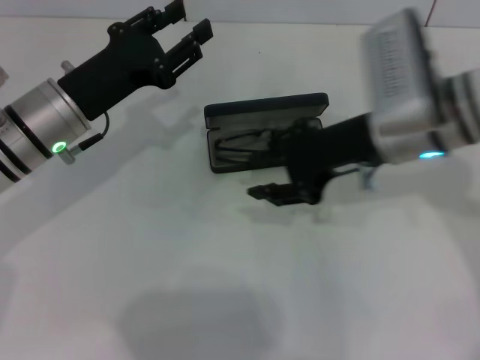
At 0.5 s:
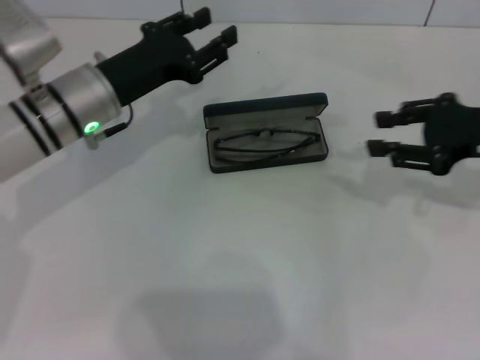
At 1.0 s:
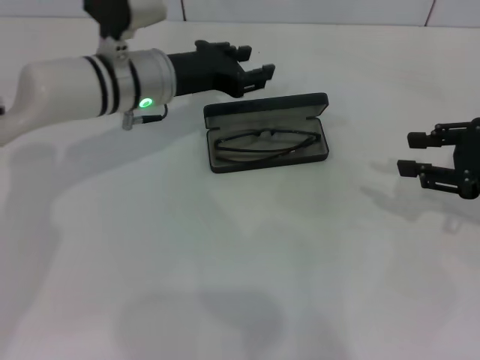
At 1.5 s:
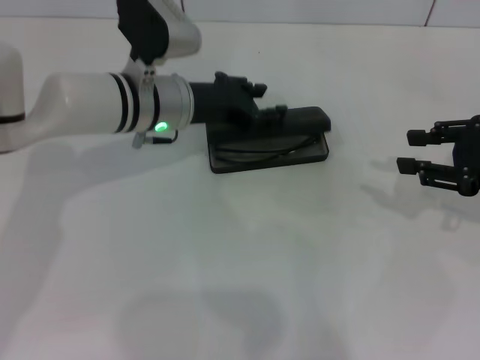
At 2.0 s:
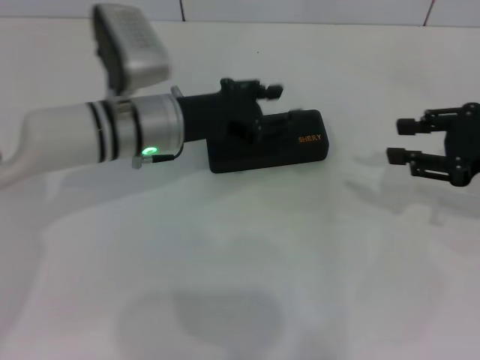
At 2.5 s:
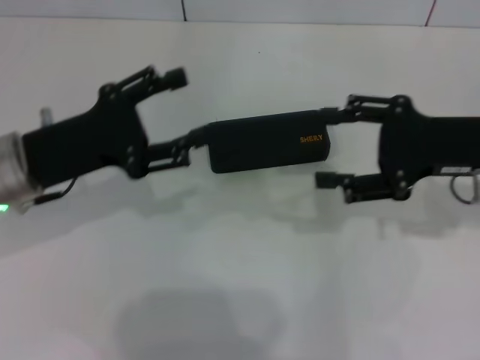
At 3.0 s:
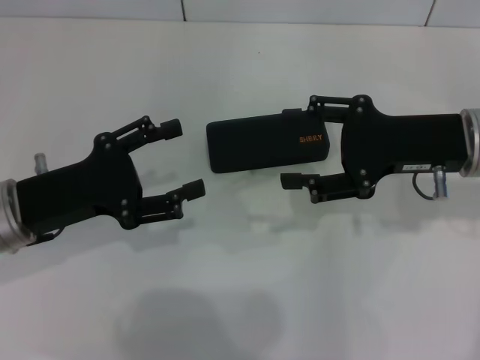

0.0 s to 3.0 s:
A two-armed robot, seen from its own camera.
Step, 0.0 to 1.5 s: Close the glasses case with your left hand.
0.0 to 1.5 s: The right gripper heads to the right, covering approximately 15 cm. The left gripper goes roughly 10 cm to the right and forward.
1.5 to 3.0 s: The right gripper is displaced to the left by roughly 10 cm, and opens its fingers. The left gripper shifts about 20 cm backward and to the left, and opens its fingers.

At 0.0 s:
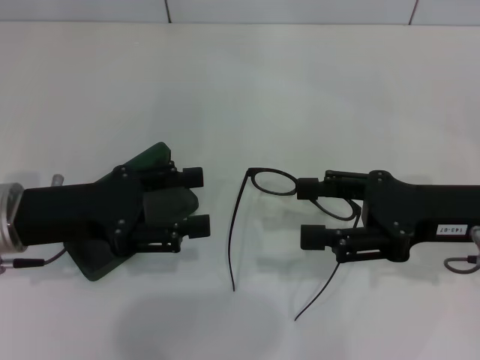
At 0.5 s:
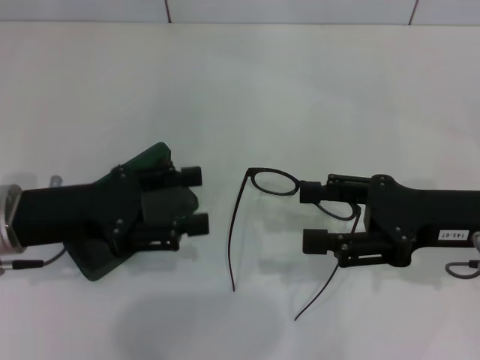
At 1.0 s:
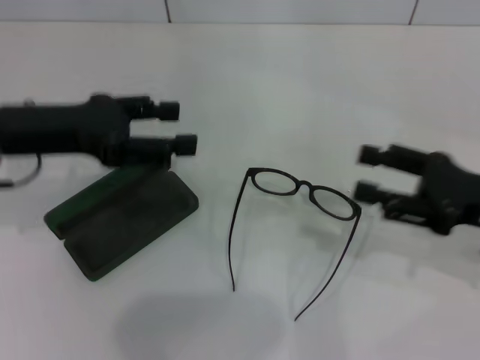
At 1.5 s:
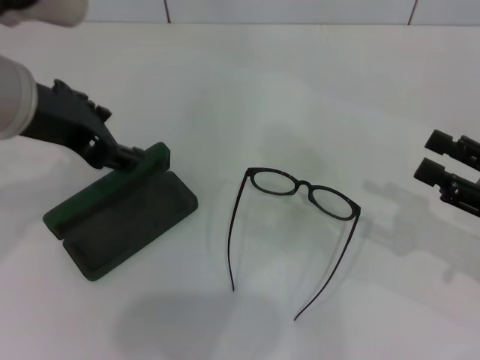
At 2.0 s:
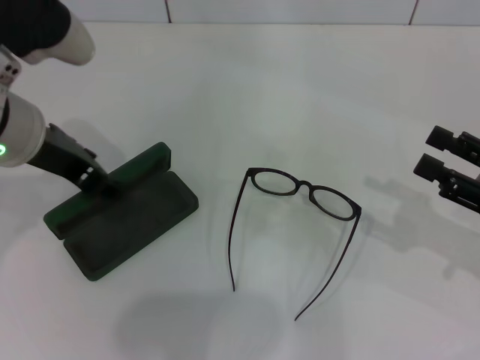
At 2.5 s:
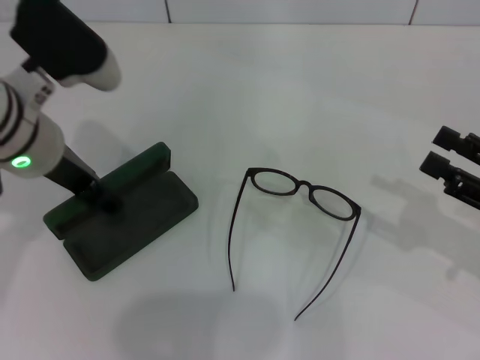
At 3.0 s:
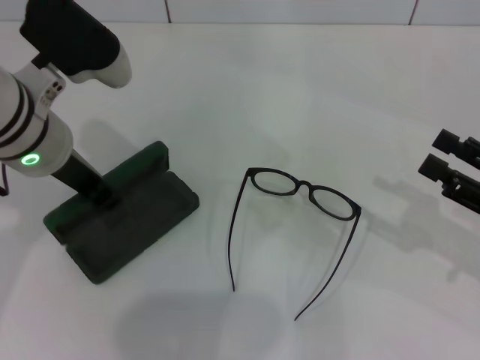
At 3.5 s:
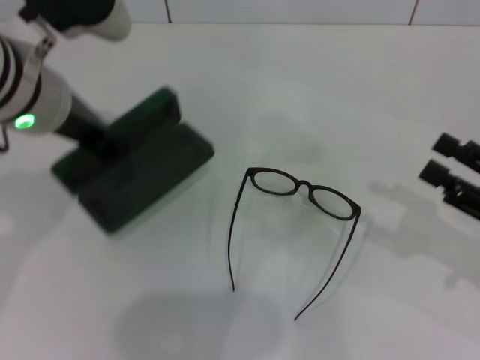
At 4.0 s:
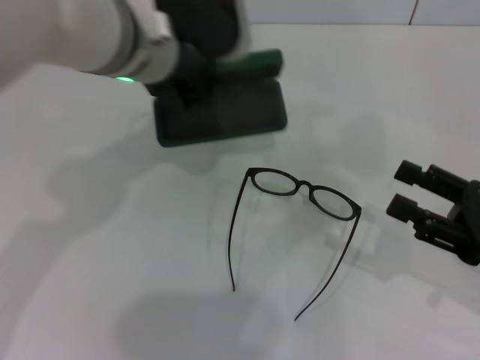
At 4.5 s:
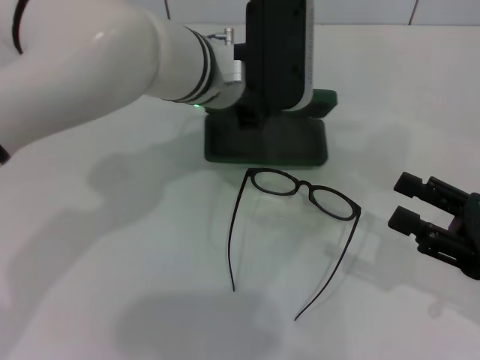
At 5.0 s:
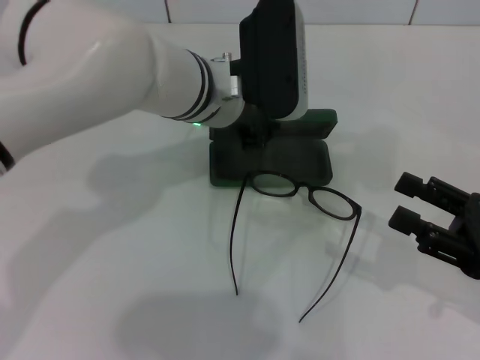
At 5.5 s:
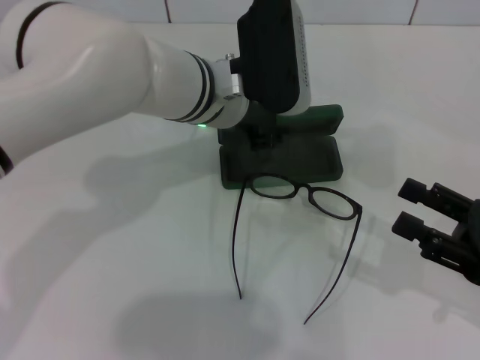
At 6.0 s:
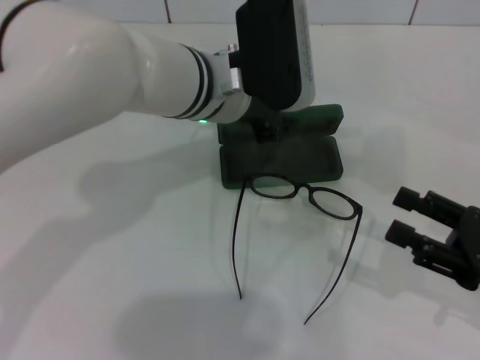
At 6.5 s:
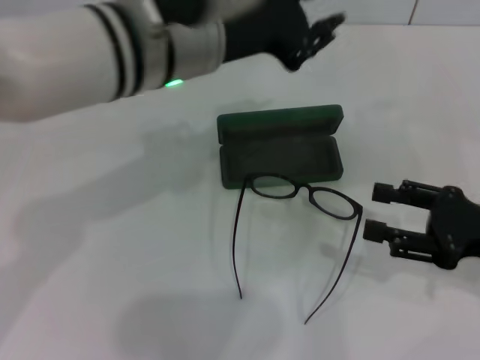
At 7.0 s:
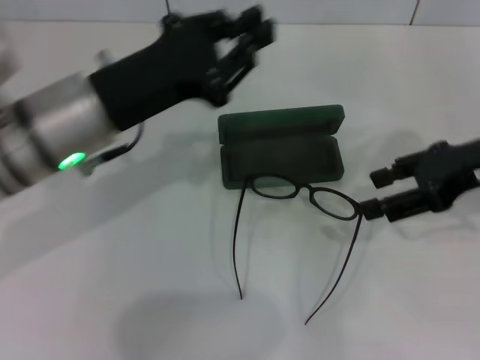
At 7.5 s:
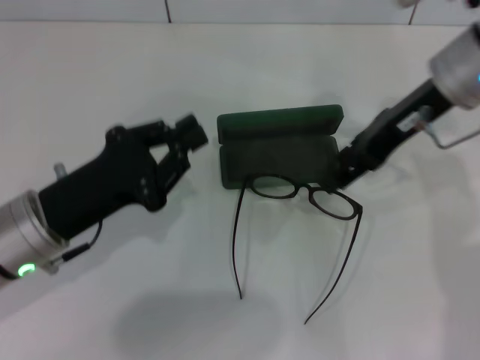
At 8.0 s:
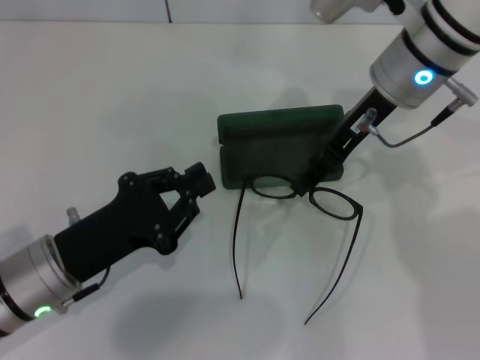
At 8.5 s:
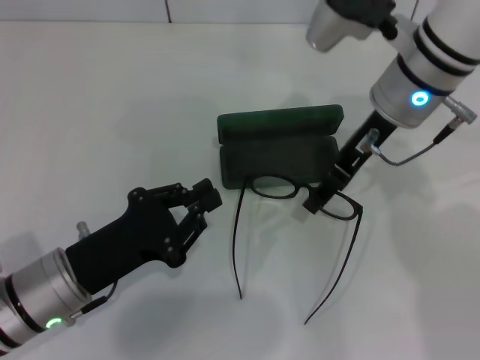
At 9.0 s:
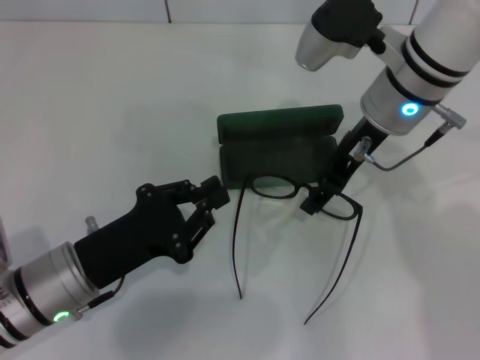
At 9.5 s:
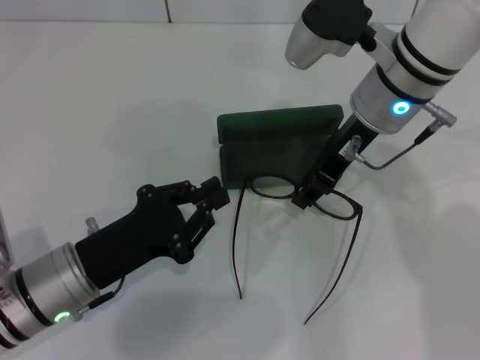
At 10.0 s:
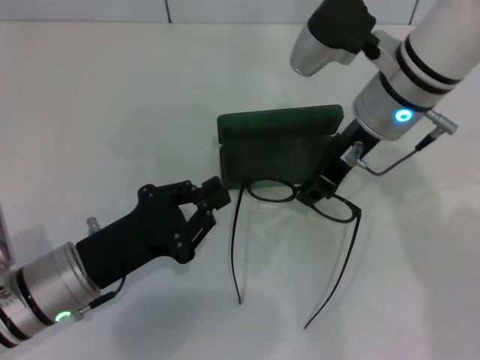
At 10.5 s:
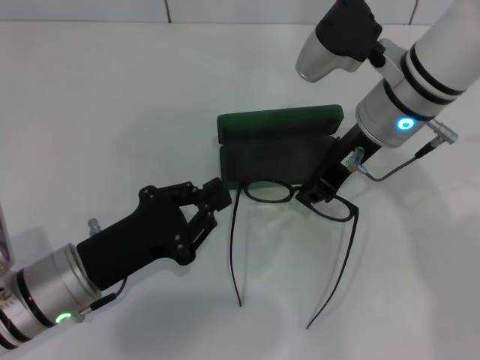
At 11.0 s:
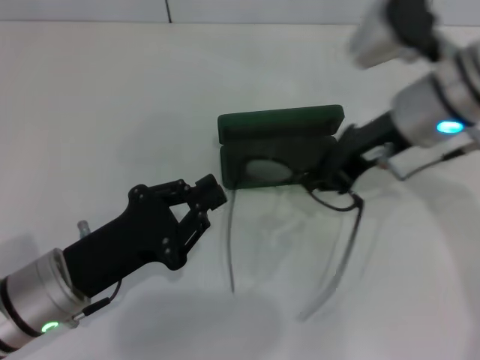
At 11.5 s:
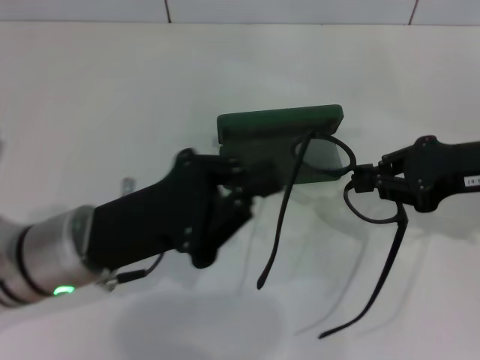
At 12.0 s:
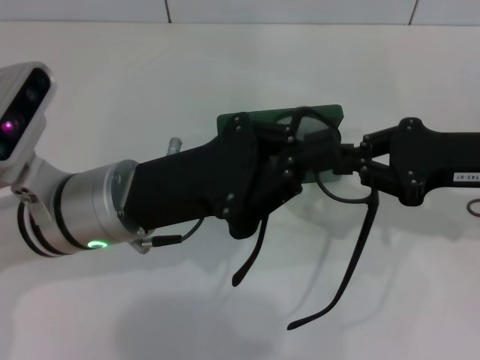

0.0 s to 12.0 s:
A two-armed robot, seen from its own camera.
Step, 0.0 to 2.5 s: Grab the glasses case with your left hand.
Step, 3.0 to 6.0 s: Place the glasses case in the center of the table with your left hand.
Step, 6.5 to 10.5 s: Grab the eyeglass frame with your right hand.
0.0 to 2.0 s: The left gripper is displaced upward by some 10 cm. Meanwhile the right gripper heads to the right, covering about 10 cm.
2.0 to 4.0 s: The left gripper moves to the right and forward, approximately 10 cm, and closes up.
4.0 to 6.0 s: The left gripper shifts by about 5 cm.
6.0 to 8.0 s: The left gripper is displaced to the left, backward and downward by some 25 cm. Meanwhile the right gripper shifts roughly 30 cm forward, to the left and upward.
8.0 to 10.0 s: The right gripper closes its fingers.
10.0 to 12.0 s: The left gripper travels upward and to the right by some 10 cm; the right gripper shifts some 15 cm to the right and backward.

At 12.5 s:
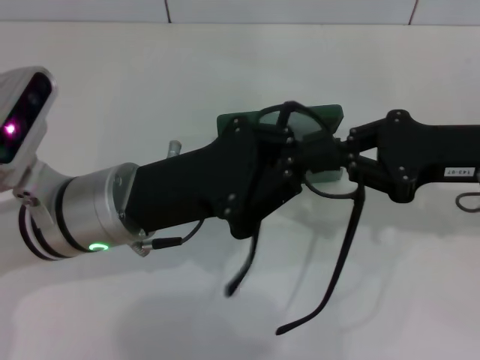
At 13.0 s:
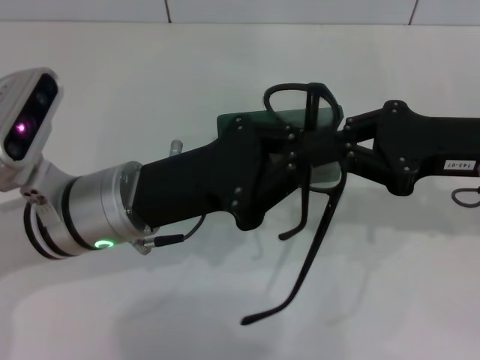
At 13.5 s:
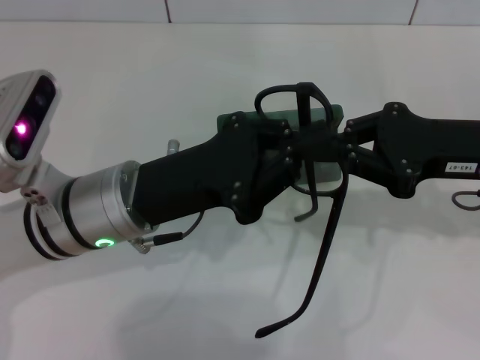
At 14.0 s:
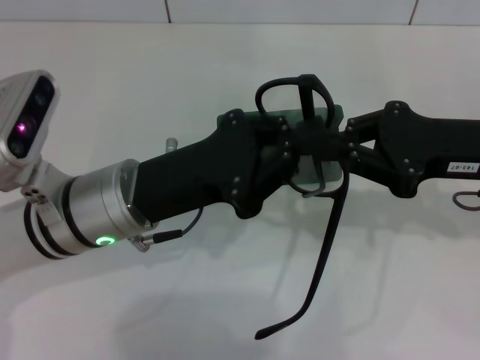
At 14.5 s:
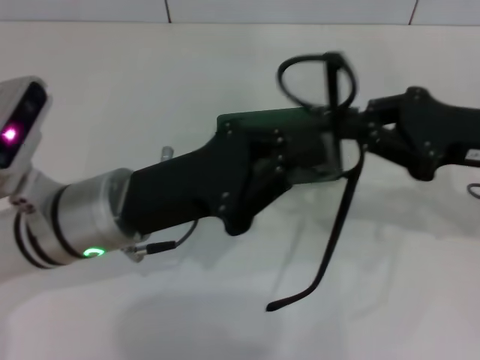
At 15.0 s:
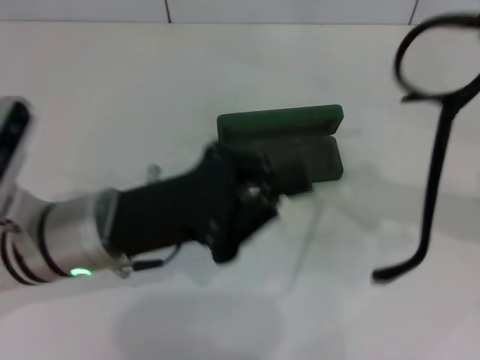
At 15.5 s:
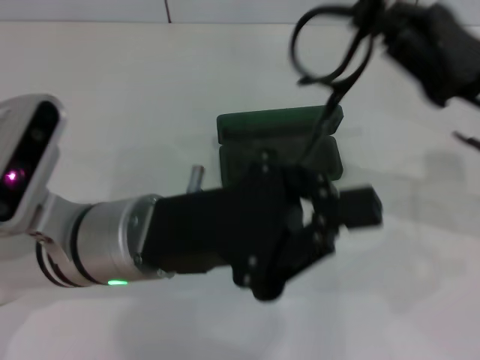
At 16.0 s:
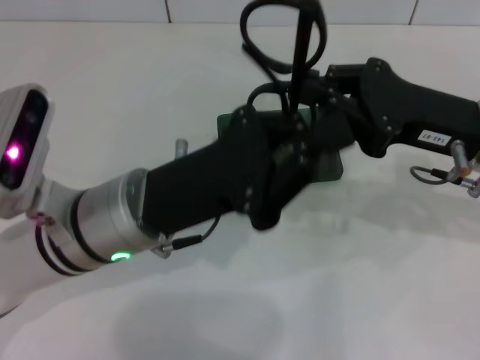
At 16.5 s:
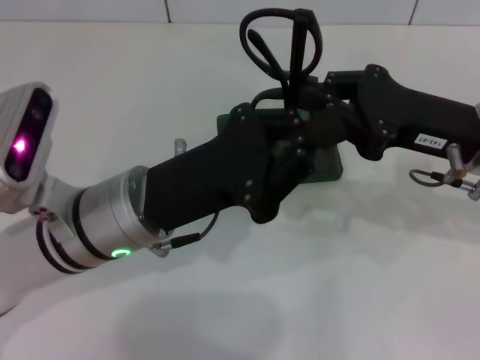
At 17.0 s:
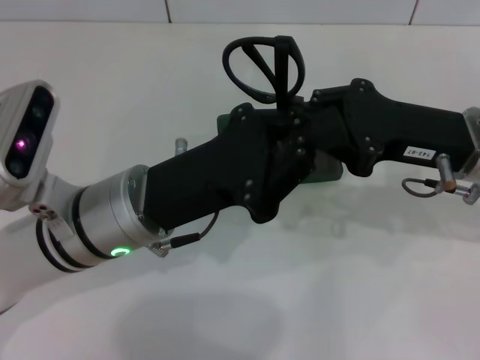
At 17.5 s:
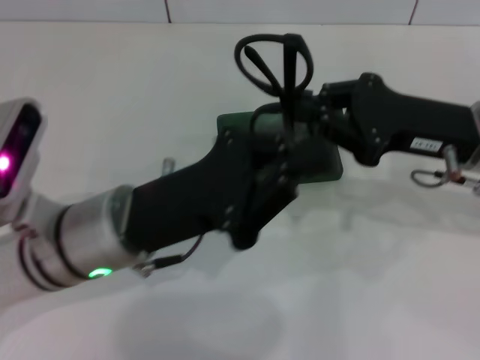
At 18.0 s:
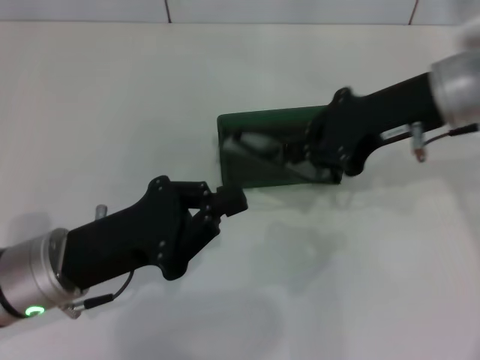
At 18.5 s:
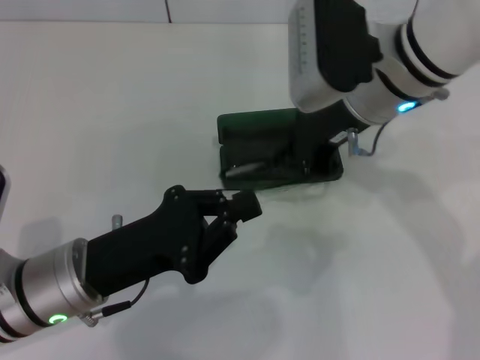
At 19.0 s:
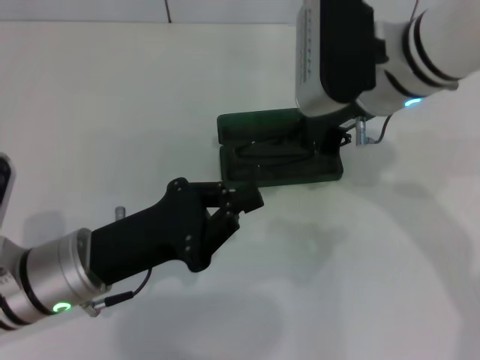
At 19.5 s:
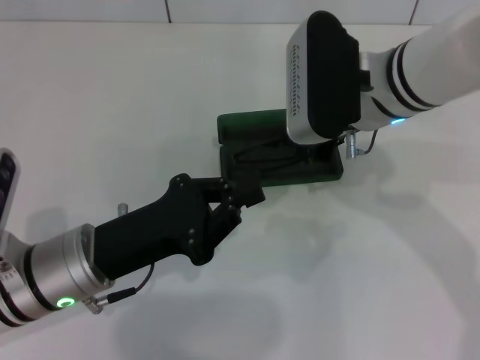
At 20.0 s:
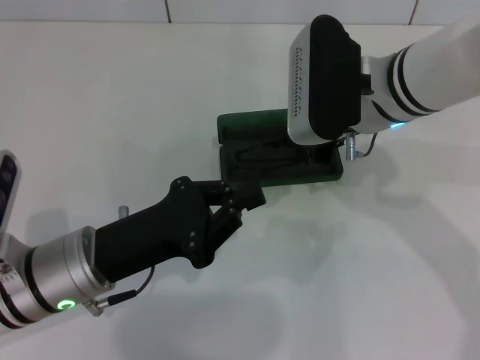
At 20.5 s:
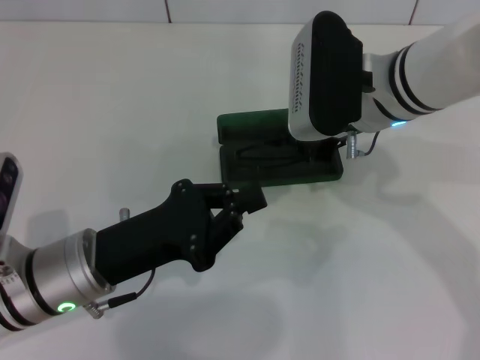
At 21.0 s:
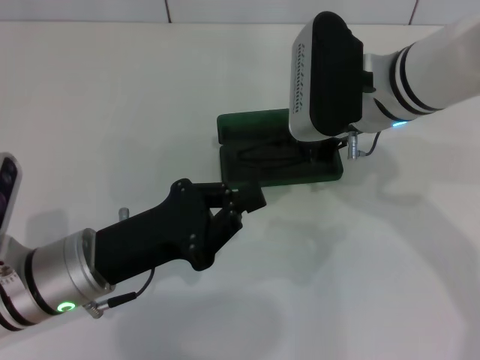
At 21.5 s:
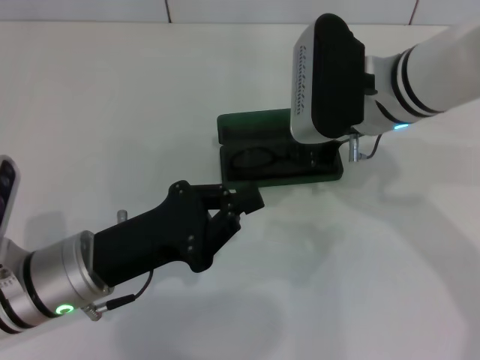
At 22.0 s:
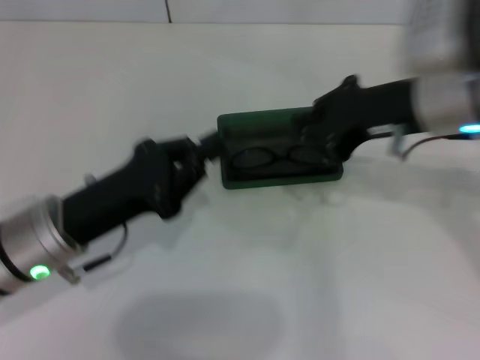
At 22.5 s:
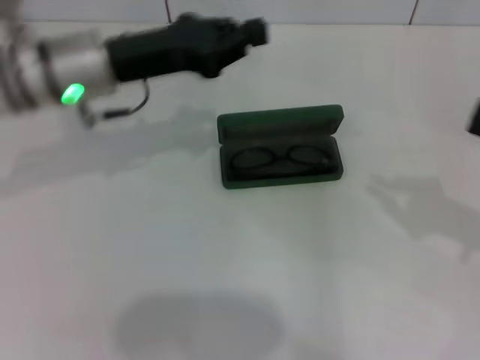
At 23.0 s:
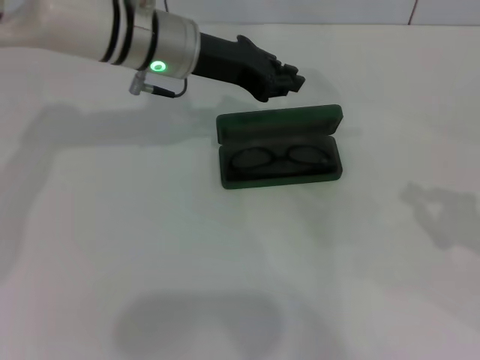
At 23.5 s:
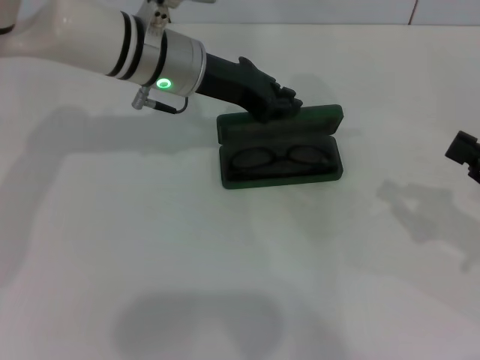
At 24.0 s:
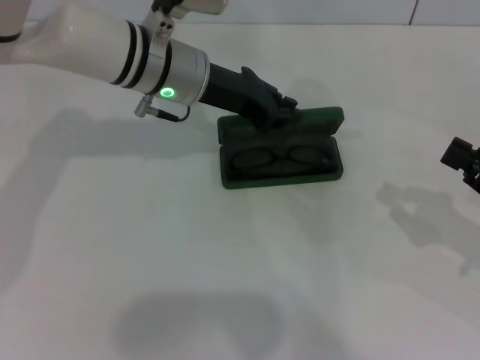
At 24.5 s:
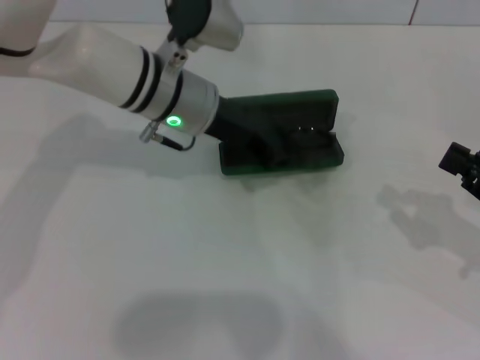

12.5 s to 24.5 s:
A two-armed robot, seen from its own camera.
Step, 12.5 to 17.0 s: Fold the frame with your left hand.
Step, 17.5 to 21.0 s: Put the glasses into the case with your right hand.
12.5 to 14.5 s: The grippers move only a little.
16.5 to 18.5 s: The left gripper shifts approximately 5 cm to the left. The right gripper travels to the left, upward and forward by roughly 15 cm.
18.5 to 20.5 s: The grippers move only a little.
20.5 to 22.5 s: The left gripper goes about 20 cm forward and upward, while the right gripper is displaced to the right and backward by about 25 cm.
22.5 to 24.5 s: The right gripper heads downward, covering about 5 cm. Meanwhile the left gripper is displaced to the right by about 10 cm.
